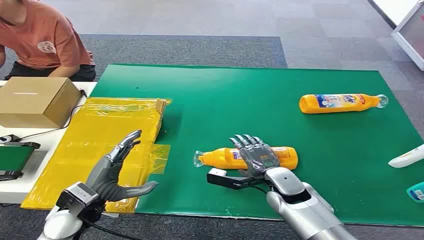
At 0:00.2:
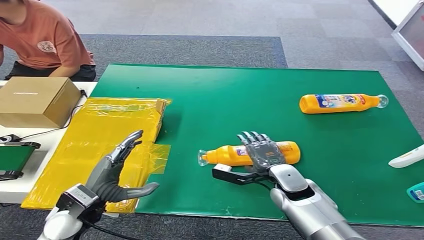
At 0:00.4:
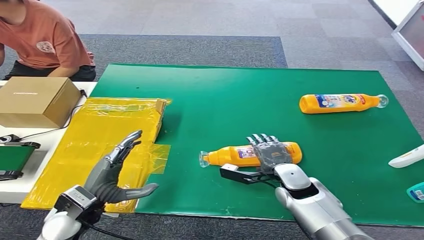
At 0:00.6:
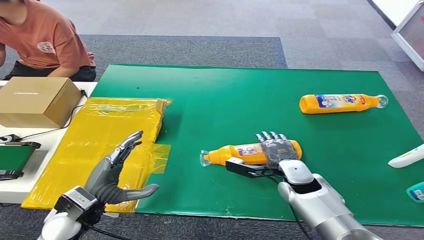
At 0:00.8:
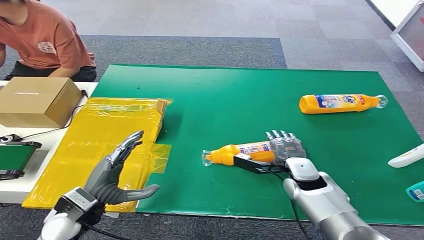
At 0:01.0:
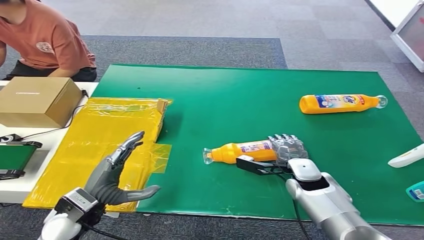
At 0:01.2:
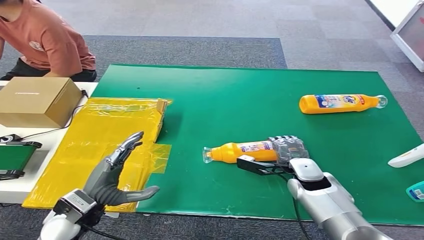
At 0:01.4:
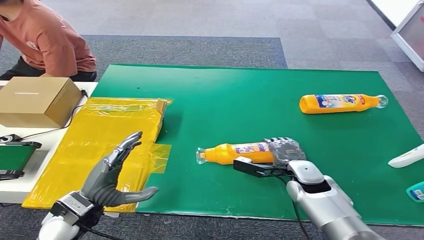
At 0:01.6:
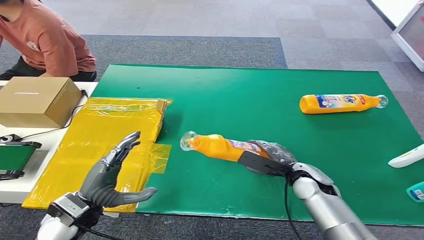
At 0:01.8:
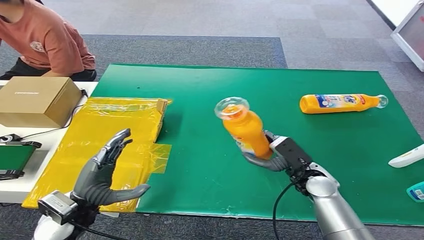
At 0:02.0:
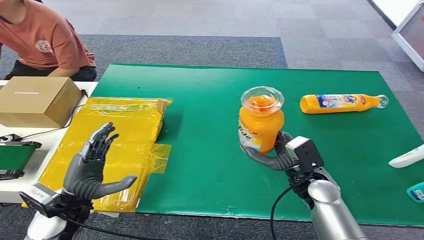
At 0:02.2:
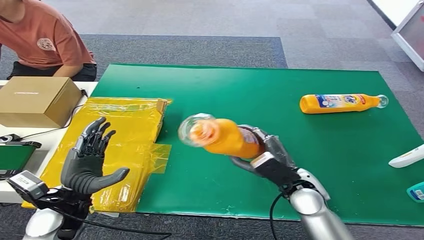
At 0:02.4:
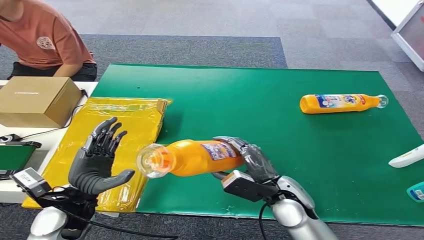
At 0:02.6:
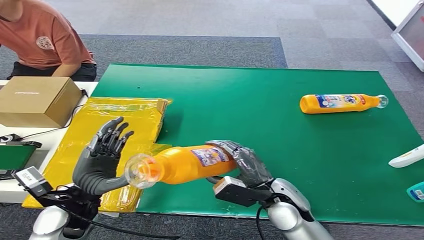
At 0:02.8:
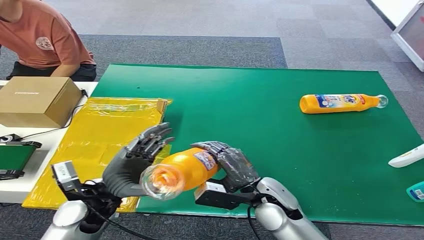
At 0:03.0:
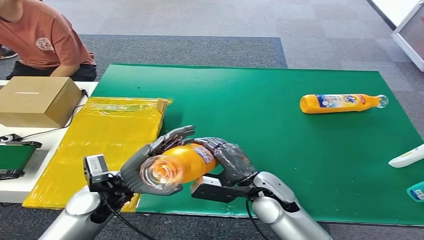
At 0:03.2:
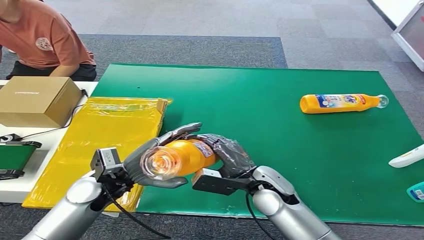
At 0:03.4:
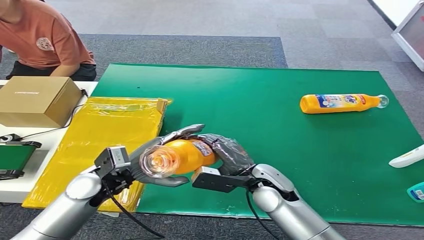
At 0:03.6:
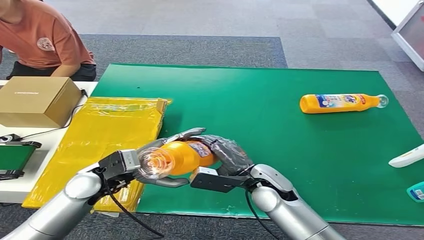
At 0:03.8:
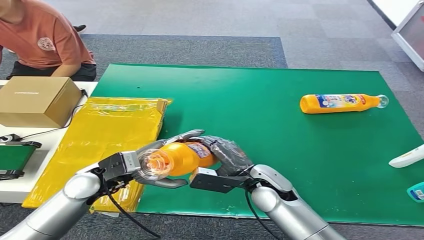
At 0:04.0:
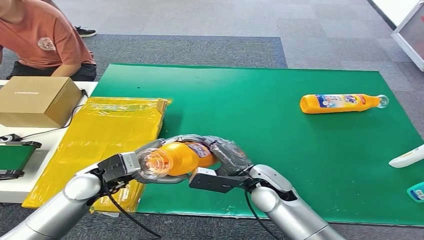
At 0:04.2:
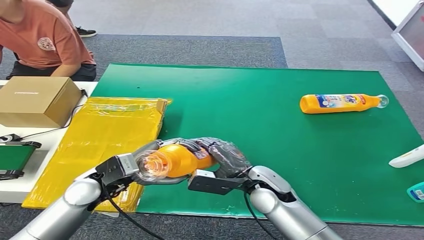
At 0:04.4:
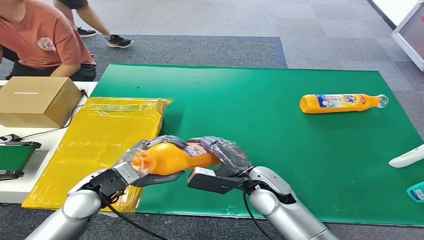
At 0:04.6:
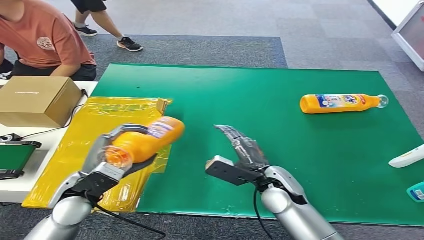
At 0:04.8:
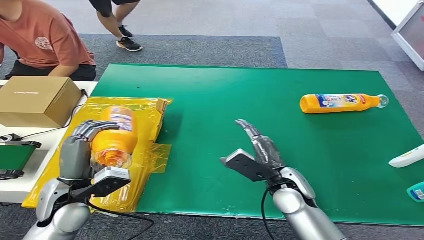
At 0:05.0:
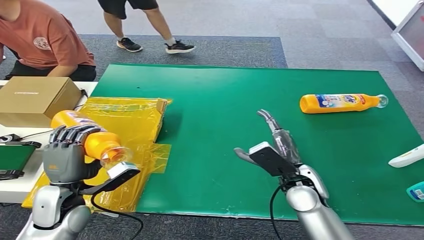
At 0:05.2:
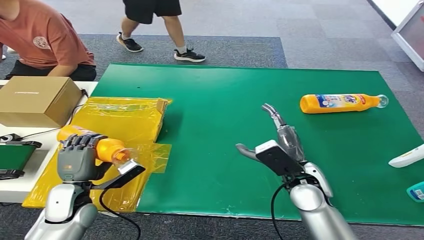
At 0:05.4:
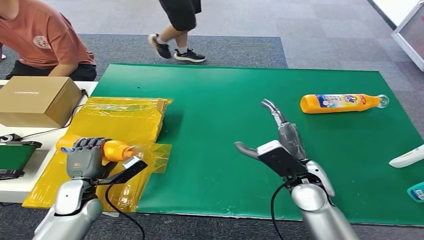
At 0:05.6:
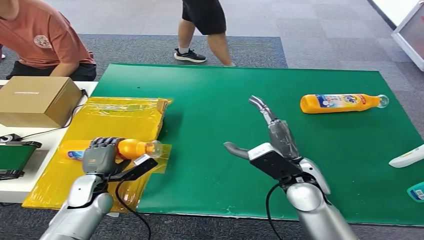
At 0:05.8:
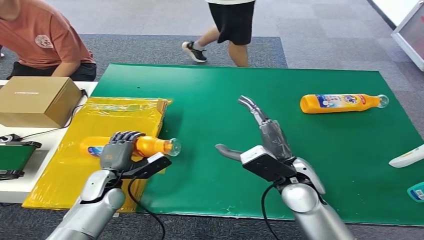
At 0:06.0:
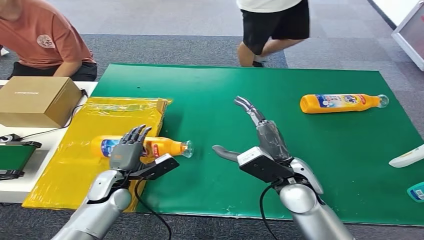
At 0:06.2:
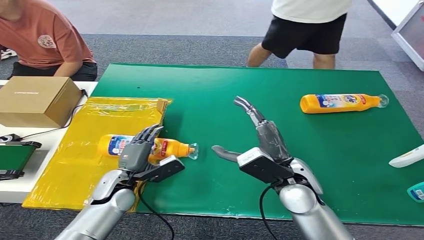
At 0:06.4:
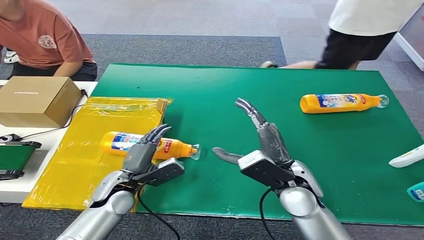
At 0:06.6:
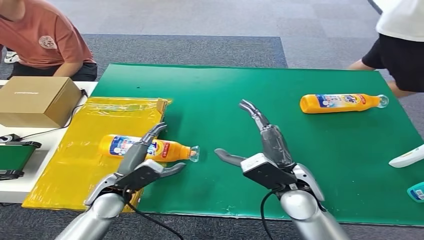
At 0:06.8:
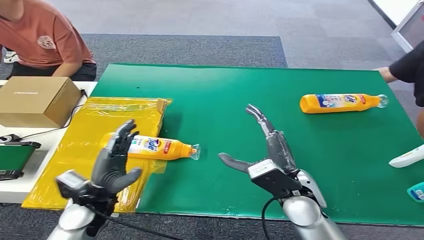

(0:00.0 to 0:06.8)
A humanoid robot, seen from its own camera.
Step, 0:00.0 - 0:01.8: Pick up the bottle from the table.
Step, 0:02.0 - 0:06.6: Turn the bottle to the front side.
0:02.8 - 0:04.0: The left hand ends up roughly 5 cm from where it was.
